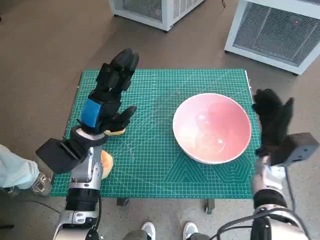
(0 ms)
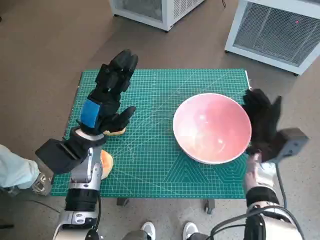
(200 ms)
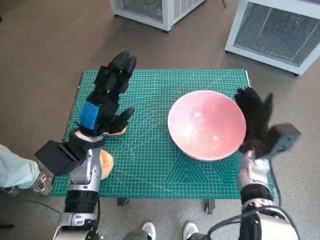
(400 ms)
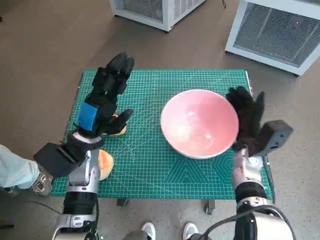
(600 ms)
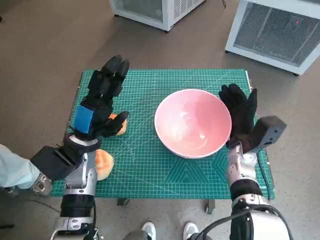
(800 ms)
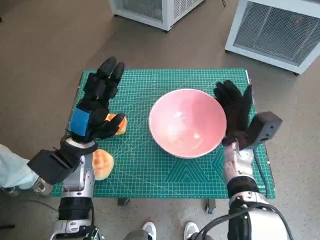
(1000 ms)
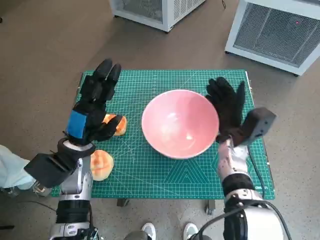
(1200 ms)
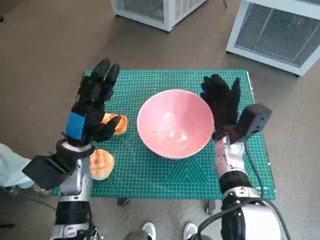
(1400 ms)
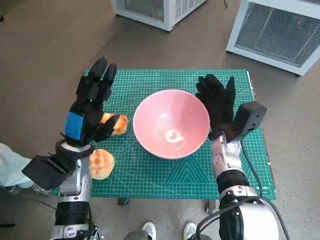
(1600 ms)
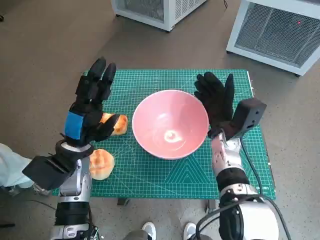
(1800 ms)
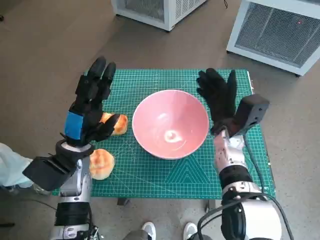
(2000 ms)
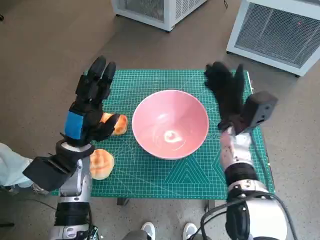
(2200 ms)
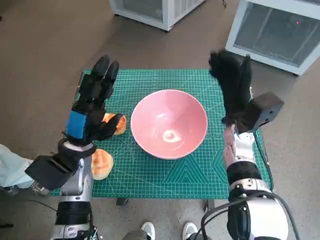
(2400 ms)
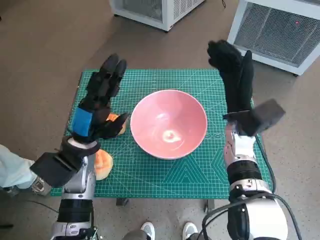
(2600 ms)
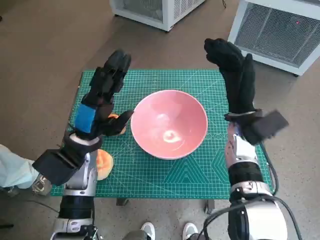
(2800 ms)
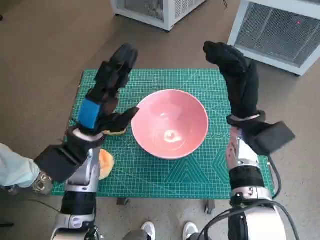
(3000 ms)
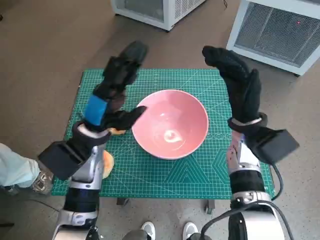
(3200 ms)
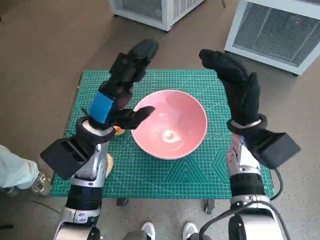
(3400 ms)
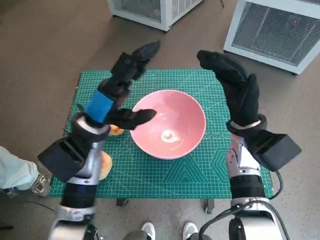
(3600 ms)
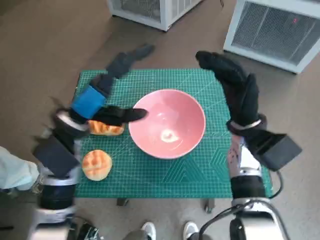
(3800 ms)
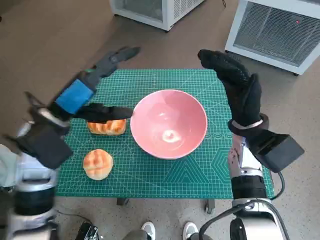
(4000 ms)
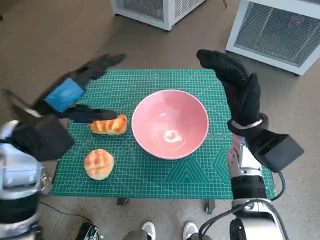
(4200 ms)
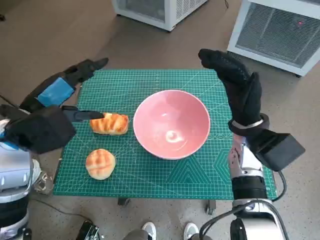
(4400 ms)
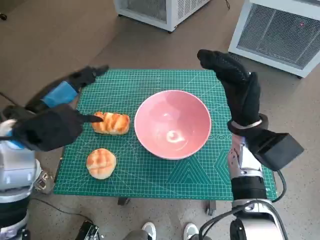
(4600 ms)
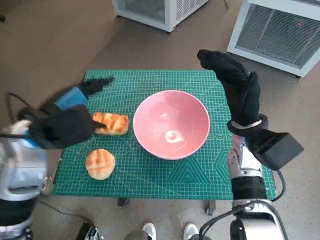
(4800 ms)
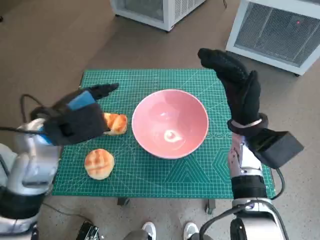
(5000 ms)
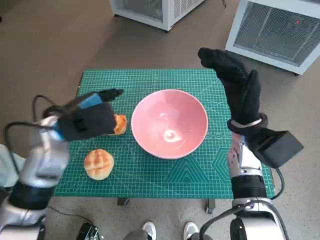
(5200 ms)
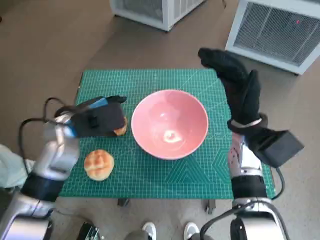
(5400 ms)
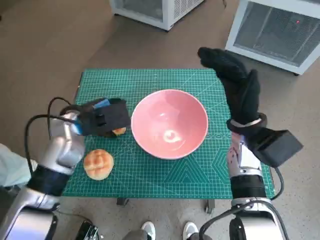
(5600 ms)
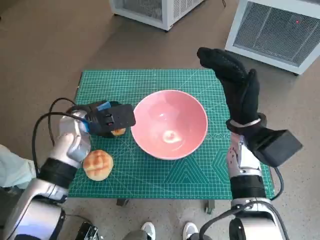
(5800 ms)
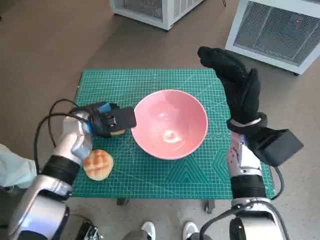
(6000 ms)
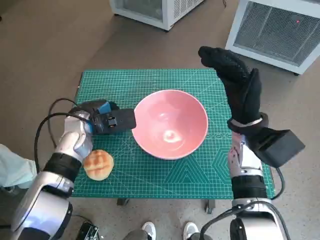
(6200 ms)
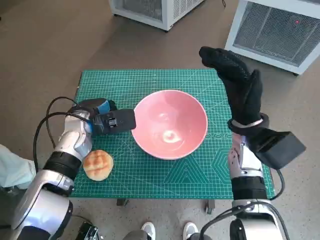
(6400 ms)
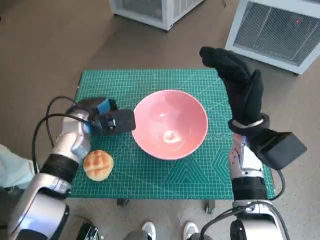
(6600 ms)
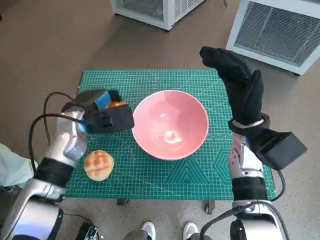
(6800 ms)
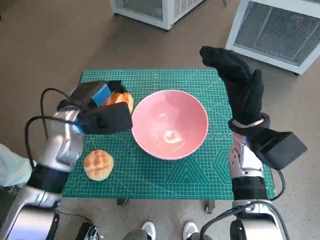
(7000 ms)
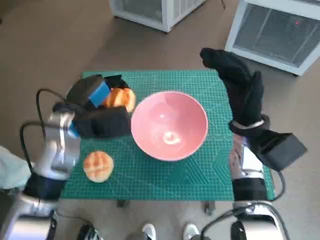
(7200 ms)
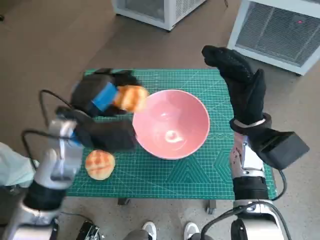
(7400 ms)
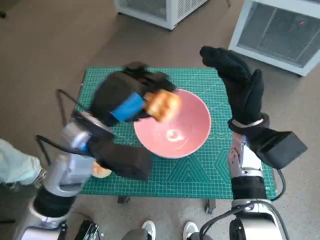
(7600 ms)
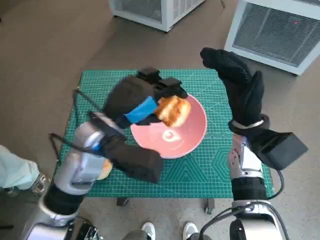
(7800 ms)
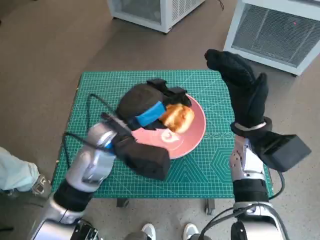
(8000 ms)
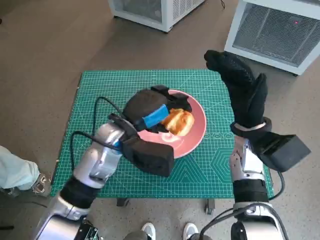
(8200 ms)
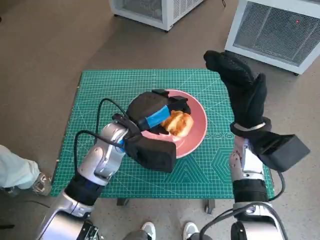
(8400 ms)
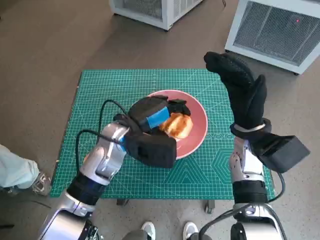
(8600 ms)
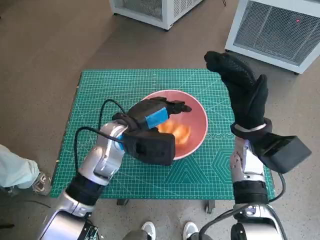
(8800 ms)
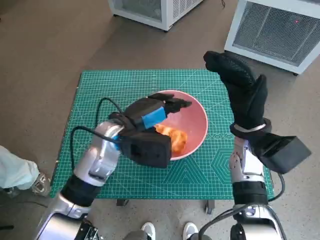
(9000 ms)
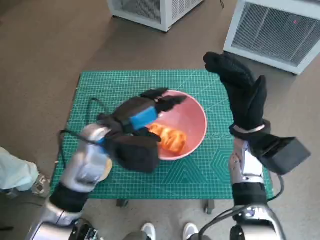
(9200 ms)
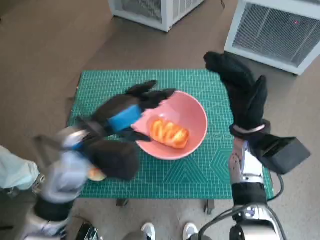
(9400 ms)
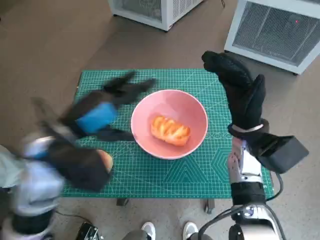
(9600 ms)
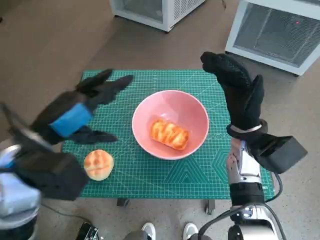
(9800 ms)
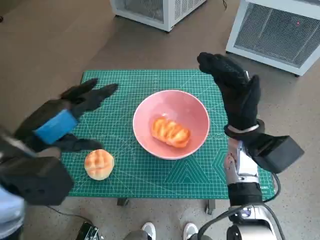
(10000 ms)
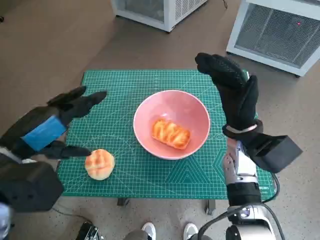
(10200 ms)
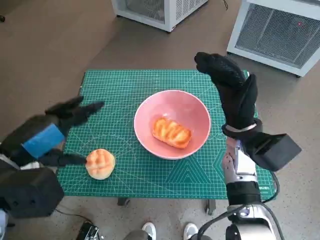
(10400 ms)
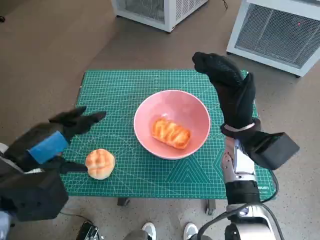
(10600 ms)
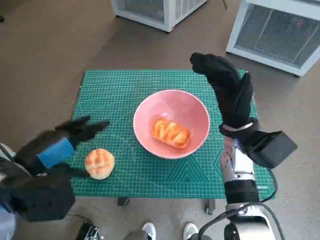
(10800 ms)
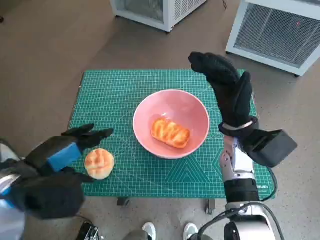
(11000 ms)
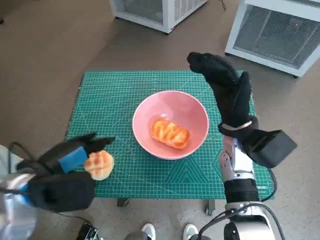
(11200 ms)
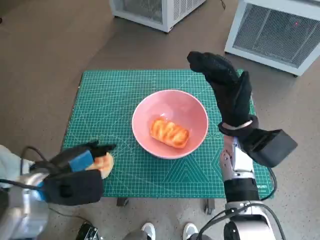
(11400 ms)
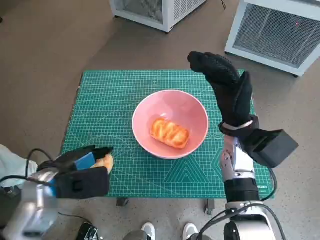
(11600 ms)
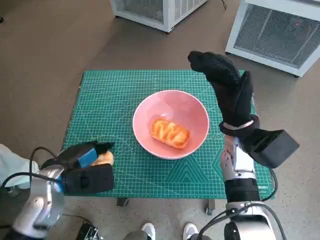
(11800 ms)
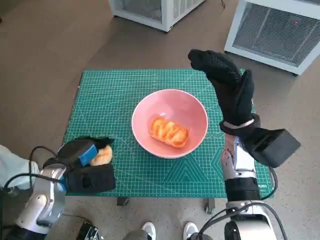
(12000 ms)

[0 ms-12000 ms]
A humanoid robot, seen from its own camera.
Task of the whole recording: Push the bowl into the center of the table and put the bread into the bowl.
Step, 2000 ms to 6000 ms: Grasp the long bread with left hand.
Step, 6200 ms to 8800 ms: Place the long bread in pink bowl with left hand.
Step, 9000 ms to 11600 ms: Grasp the round bread with left hand.
0 ms to 1600 ms: The right hand travels to the left by approximately 10 cm.
1600 ms to 3000 ms: The right hand moves upward, some 5 cm.
3000 ms to 4400 ms: The left hand travels upward and to the left by some 10 cm.
4400 ms to 6000 ms: The left hand shifts approximately 15 cm downward and forward.
6000 ms to 7600 ms: The left hand shifts some 10 cm upward, backward and to the right.
7600 ms to 9000 ms: The left hand changes place by about 5 cm.
9000 ms to 10400 ms: The left hand moves to the left, backward and upward, some 20 cm.
10400 ms to 12000 ms: The left hand goes about 15 cm downward.

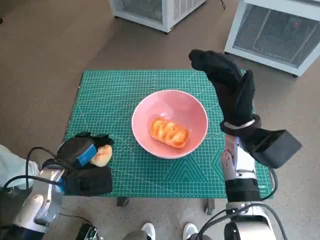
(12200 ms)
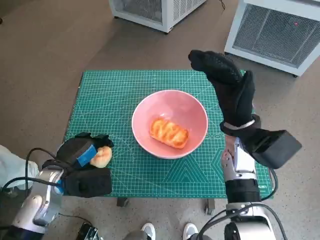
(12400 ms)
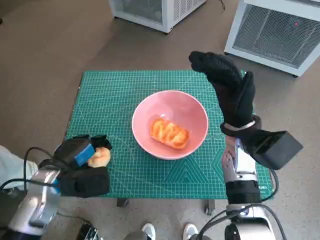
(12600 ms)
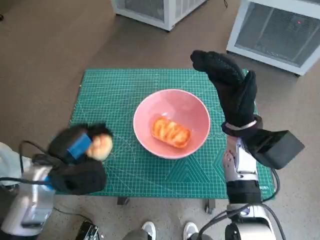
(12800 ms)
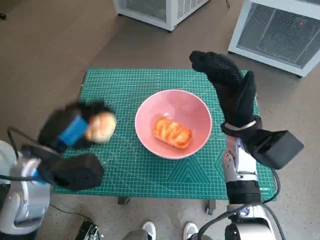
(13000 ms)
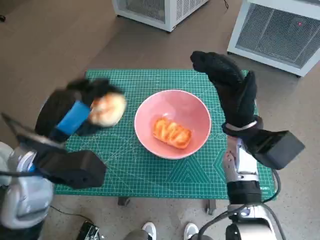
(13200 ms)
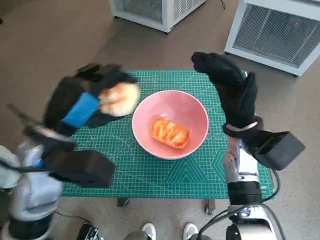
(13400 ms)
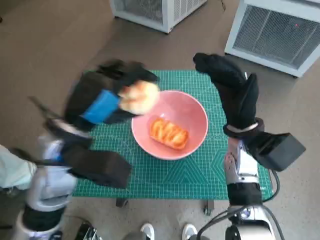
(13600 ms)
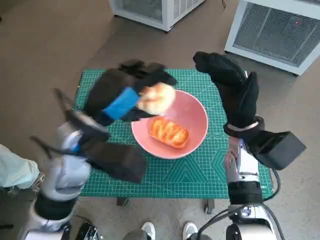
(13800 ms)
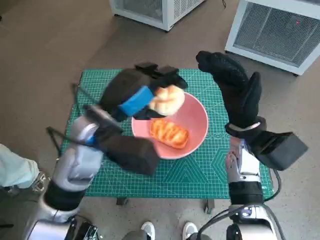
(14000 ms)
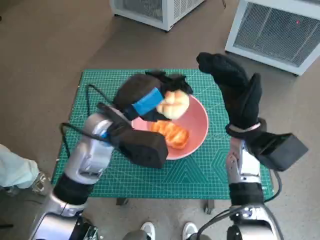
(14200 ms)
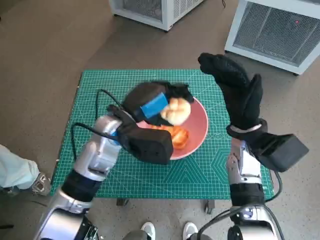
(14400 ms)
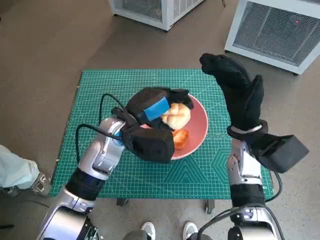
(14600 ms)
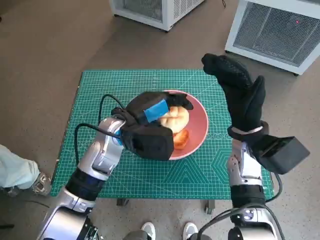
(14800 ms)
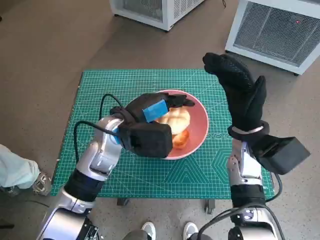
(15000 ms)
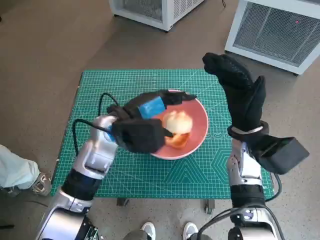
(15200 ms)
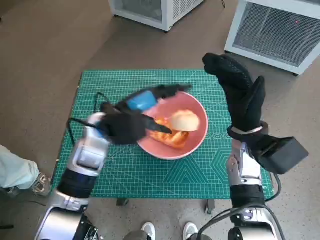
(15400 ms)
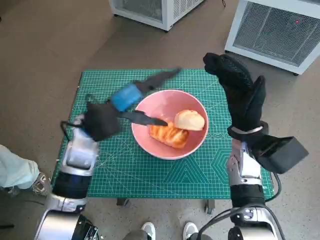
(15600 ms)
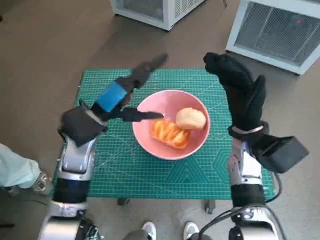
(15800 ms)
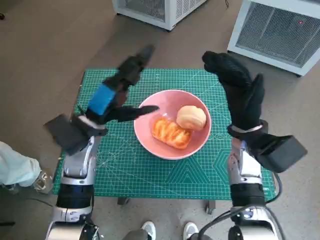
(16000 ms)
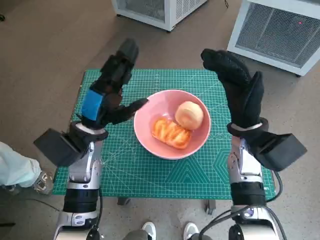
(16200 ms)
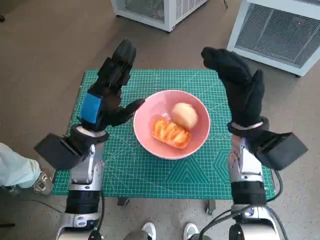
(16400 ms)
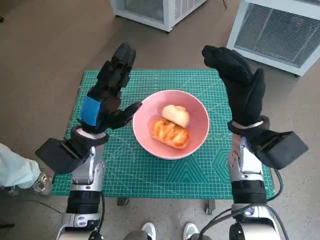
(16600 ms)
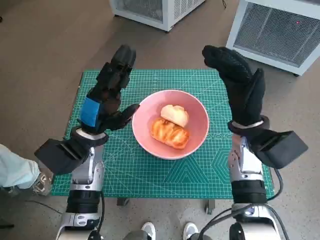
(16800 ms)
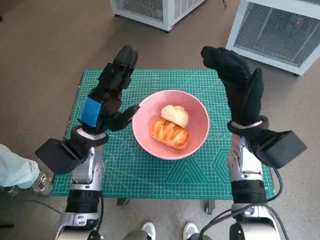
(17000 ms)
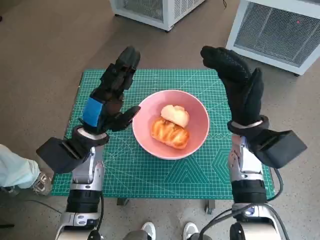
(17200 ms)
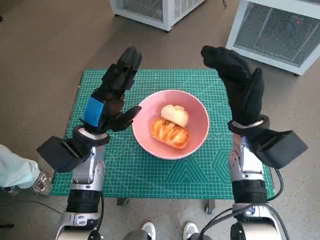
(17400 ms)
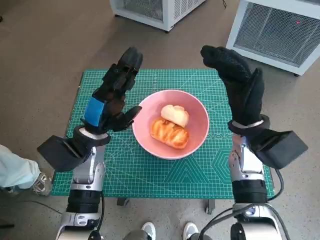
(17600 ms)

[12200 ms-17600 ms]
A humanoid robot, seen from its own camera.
Task of the whole recording: Push the bowl into the center of the table and put the bread into the bowl.
Step, 12200 ms to 15000 ms: Place the round bread in pink bowl with left hand.
12200 ms to 13600 ms: The left hand travels upward and to the right by approximately 15 cm.
13600 ms to 15000 ms: The left hand heads forward, downward and to the right, covering roughly 10 cm.
15000 ms to 16200 ms: The left hand goes approximately 5 cm to the left.
16200 ms to 17600 ms: The hands move only a little.

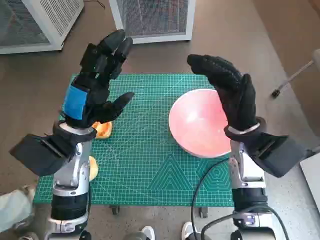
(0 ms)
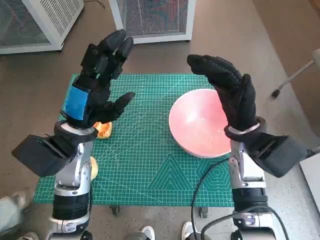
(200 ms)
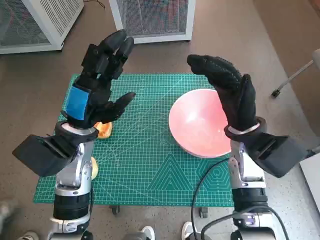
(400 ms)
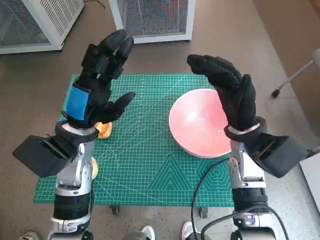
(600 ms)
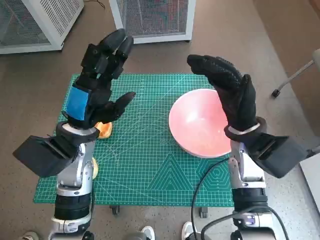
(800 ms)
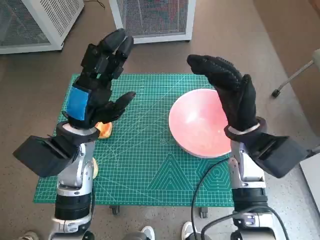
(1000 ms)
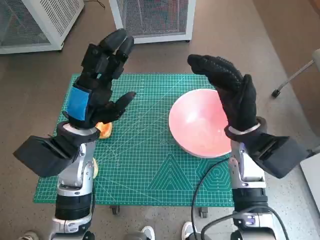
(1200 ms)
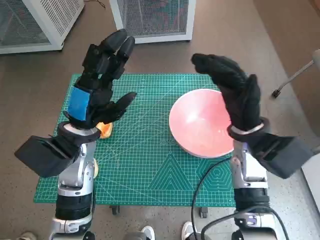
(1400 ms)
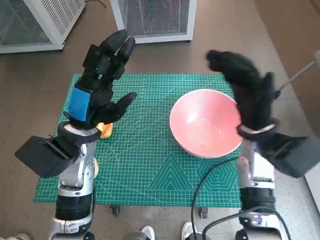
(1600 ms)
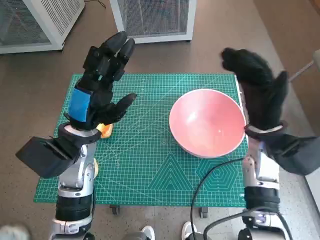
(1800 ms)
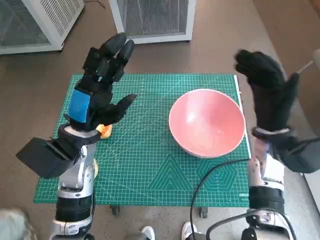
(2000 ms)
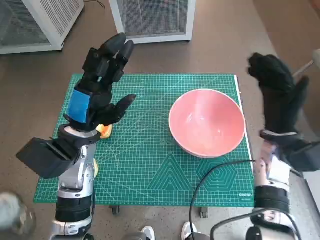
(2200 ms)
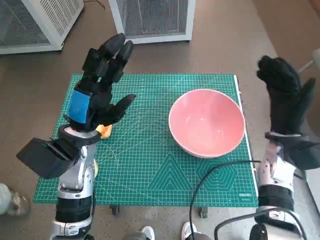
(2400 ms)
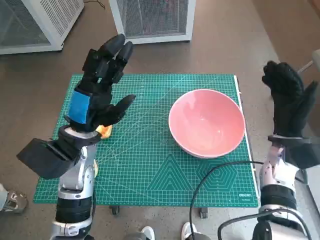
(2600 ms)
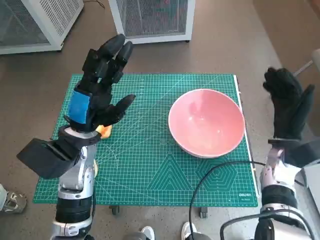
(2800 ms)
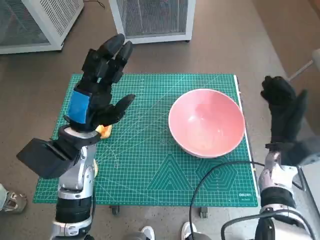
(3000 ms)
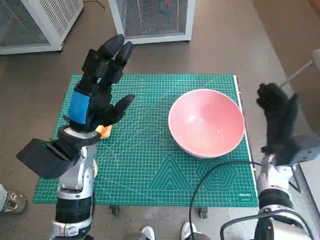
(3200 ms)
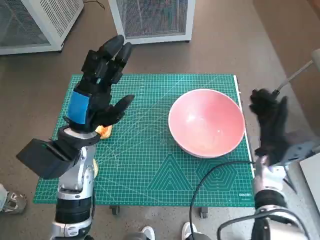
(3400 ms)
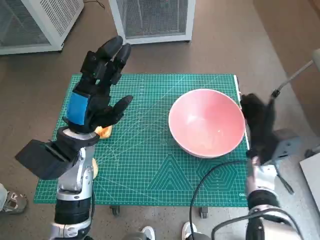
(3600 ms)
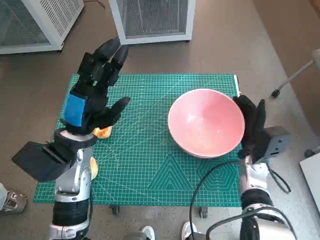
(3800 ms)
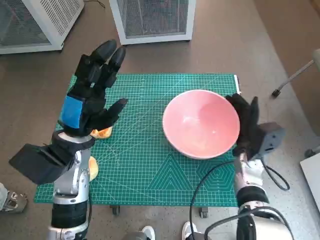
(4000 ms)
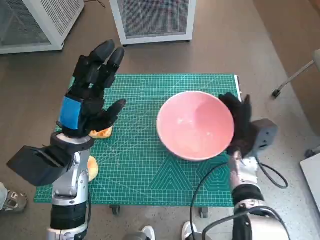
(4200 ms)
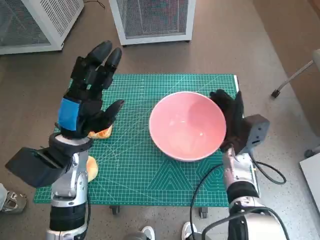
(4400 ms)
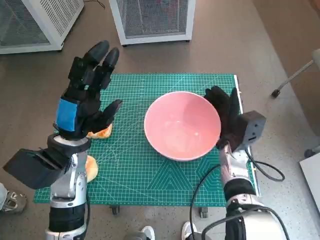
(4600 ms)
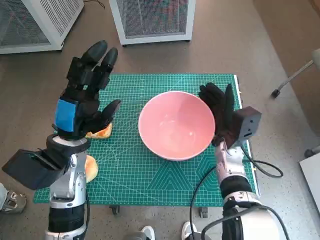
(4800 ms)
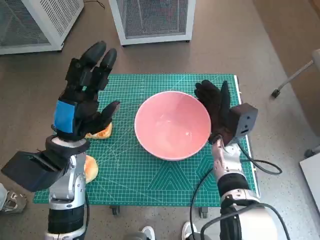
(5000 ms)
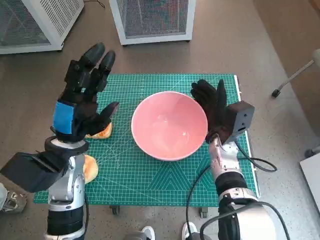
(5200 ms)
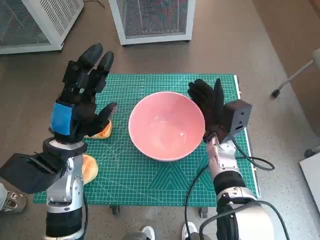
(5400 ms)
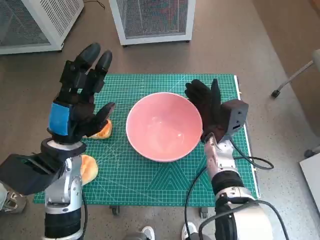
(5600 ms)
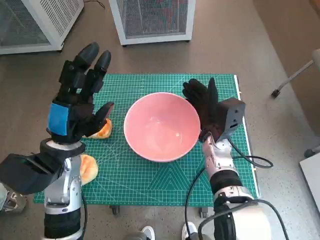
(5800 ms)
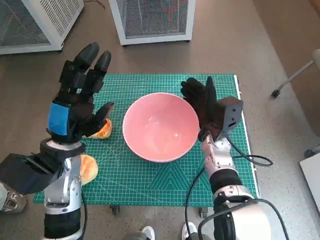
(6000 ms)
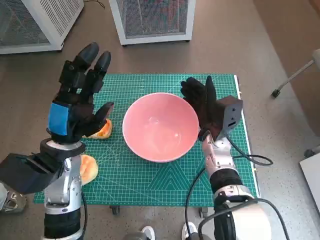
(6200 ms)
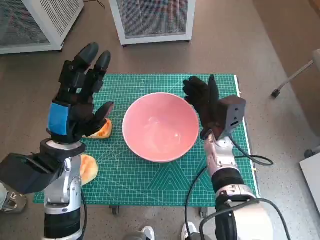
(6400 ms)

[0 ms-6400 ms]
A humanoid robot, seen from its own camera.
Task of the whole recording: Push the bowl into the center of the table and put the bread into the bowl.
1600 ms to 3200 ms: The right hand moves downward and to the right, some 10 cm.
3200 ms to 4800 ms: The right hand moves to the left, approximately 10 cm.
